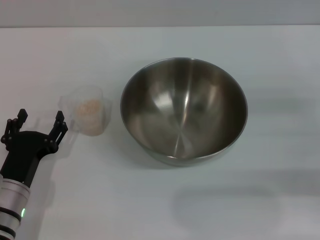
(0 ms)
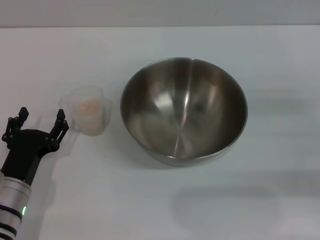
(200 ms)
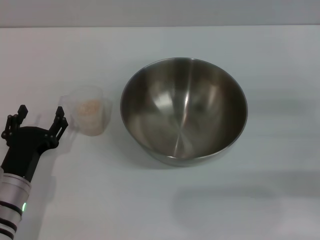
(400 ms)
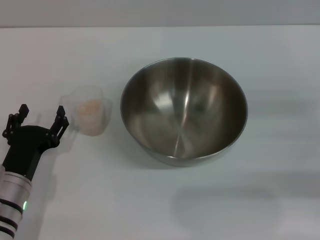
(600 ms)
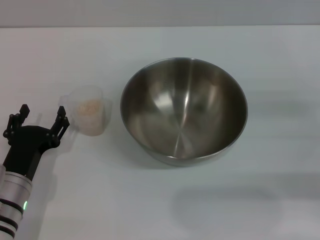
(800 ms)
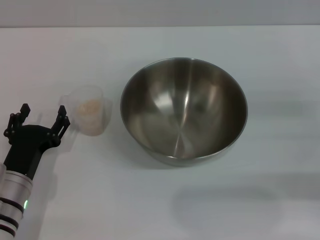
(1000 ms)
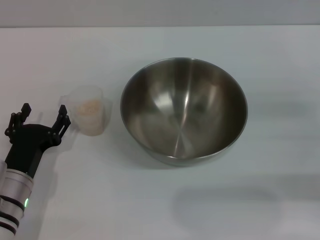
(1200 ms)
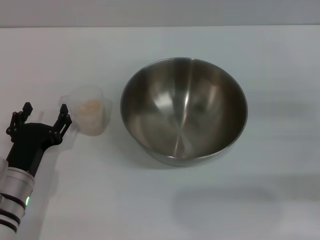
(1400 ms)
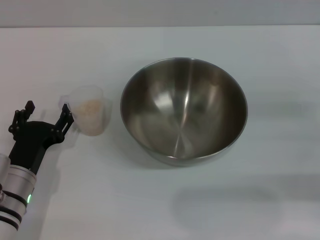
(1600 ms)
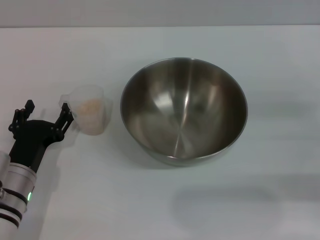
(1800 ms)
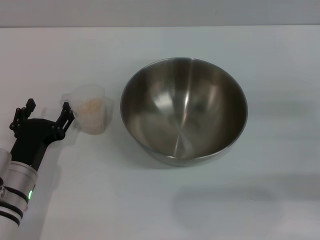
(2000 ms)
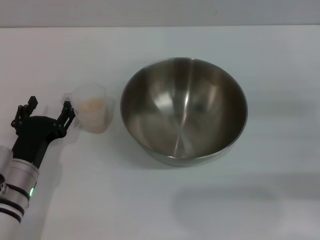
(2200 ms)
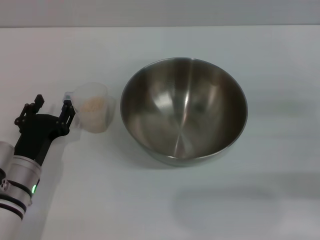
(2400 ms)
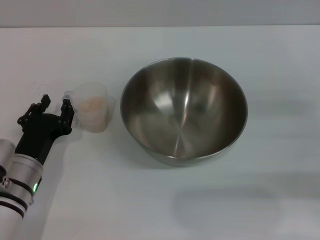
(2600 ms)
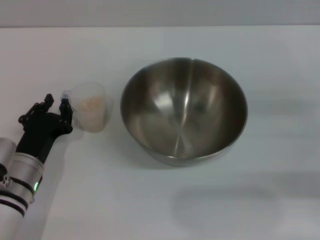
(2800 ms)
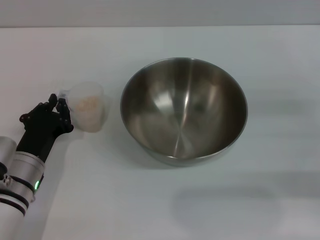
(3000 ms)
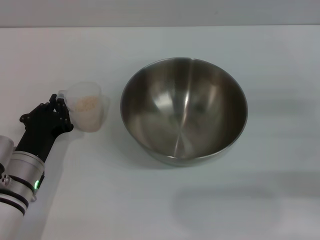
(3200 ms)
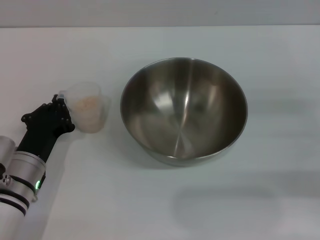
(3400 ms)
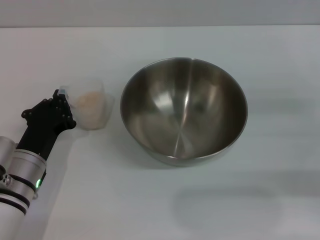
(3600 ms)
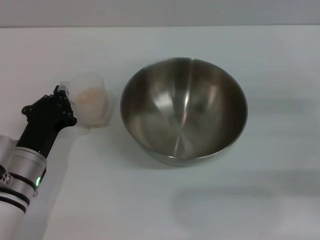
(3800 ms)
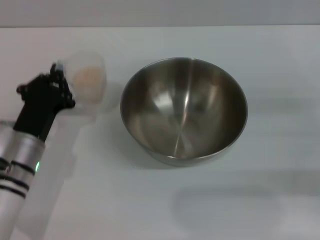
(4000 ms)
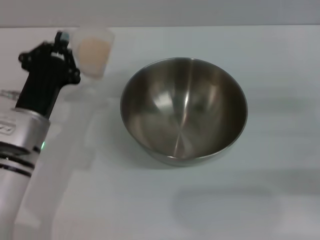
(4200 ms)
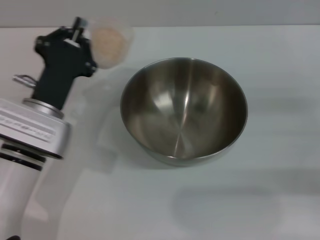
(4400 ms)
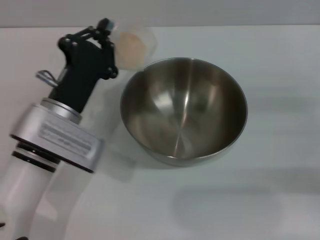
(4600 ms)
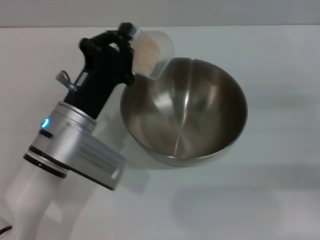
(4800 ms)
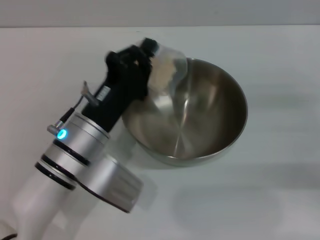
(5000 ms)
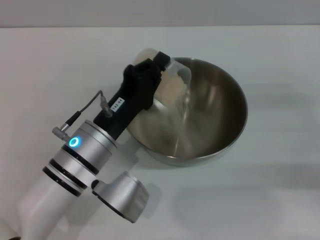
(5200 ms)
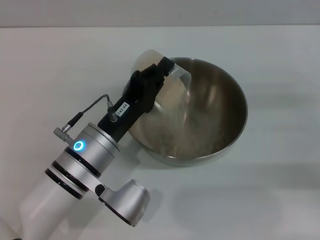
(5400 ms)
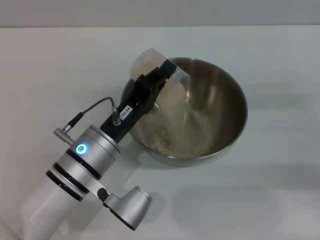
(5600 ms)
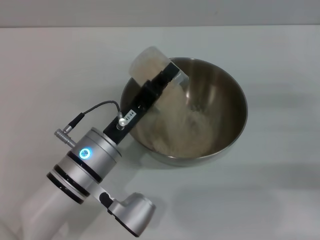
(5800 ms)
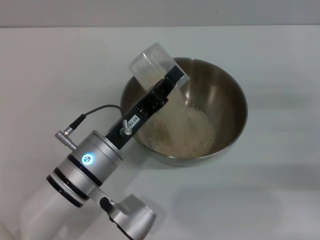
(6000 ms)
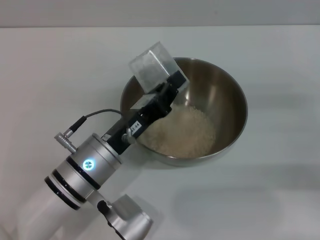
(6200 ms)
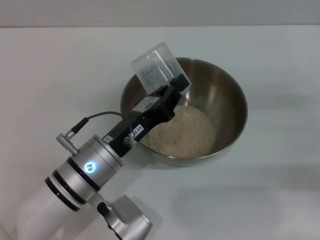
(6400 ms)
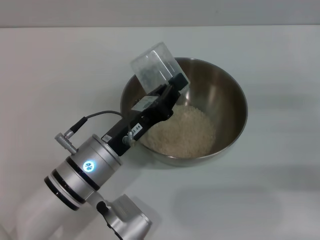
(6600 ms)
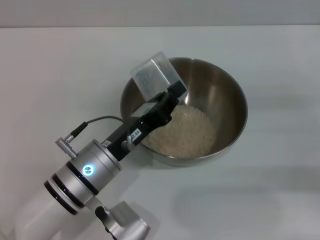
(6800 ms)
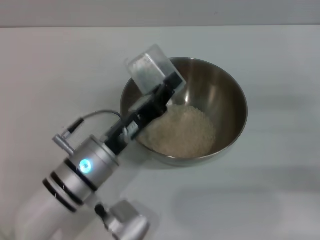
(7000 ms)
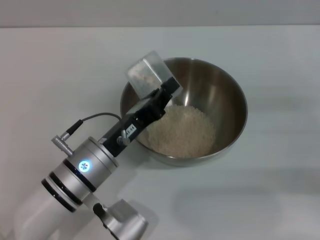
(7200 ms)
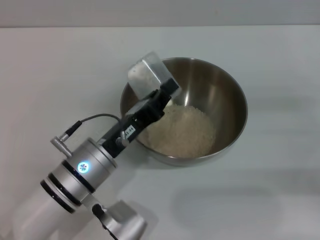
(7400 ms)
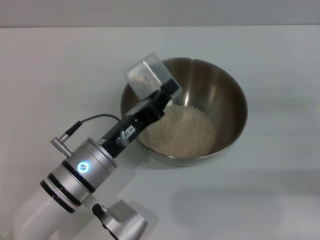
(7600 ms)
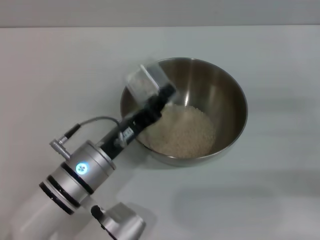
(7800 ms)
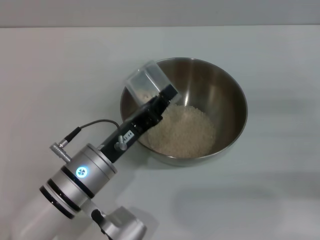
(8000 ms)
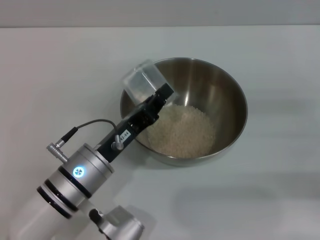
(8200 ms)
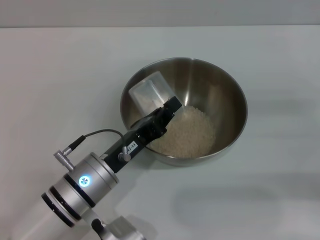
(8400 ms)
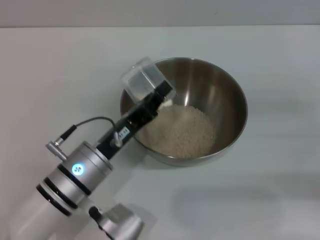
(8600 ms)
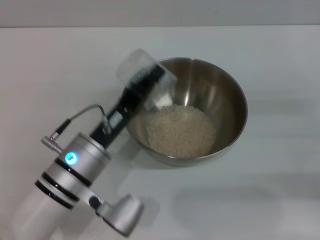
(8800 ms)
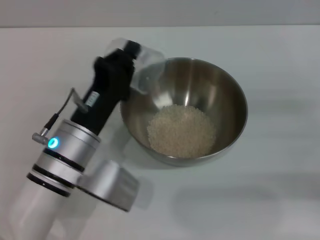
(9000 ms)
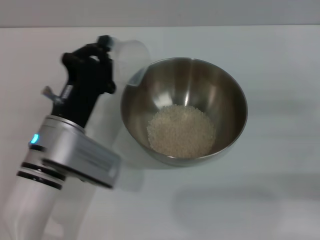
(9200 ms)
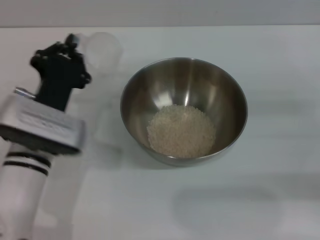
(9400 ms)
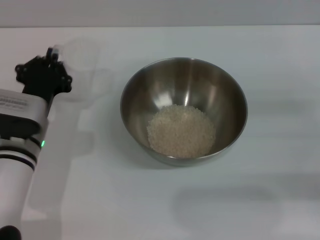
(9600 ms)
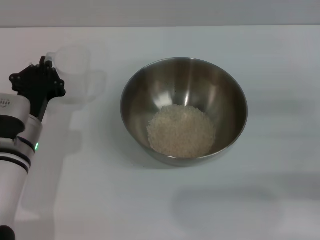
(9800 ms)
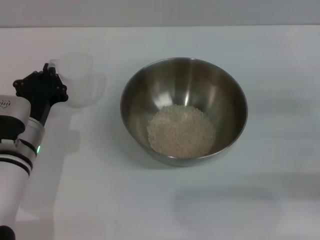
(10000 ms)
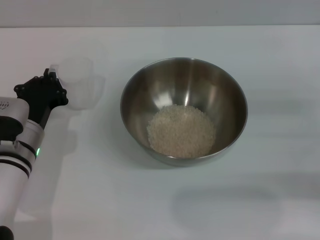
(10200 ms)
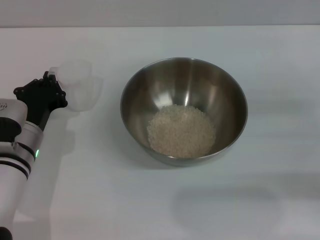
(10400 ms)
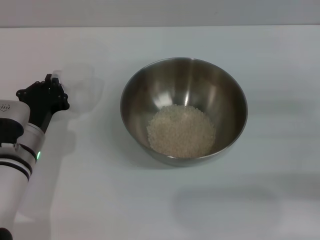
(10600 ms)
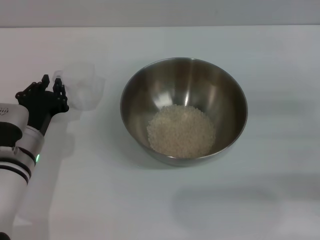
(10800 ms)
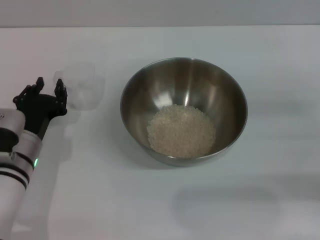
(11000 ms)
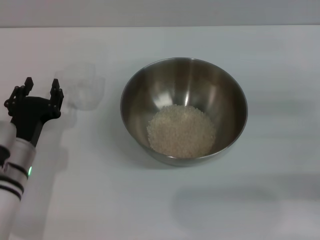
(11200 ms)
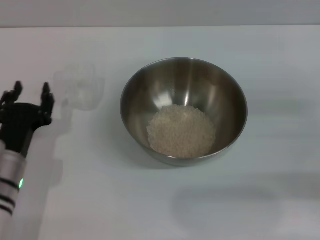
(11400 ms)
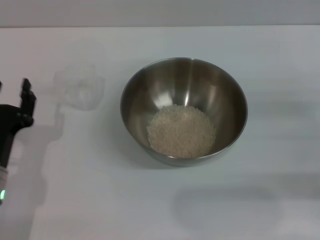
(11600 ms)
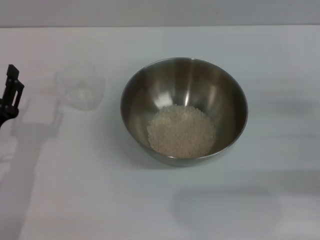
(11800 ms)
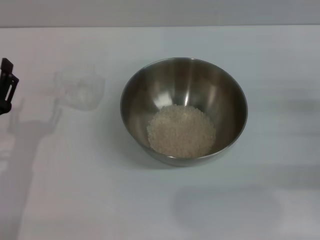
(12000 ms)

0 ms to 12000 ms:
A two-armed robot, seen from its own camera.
Task of the whole recording: Place the bowl in the middle of the table with one hand and pour the rice from the grain cup into it with the other hand.
Step, 0 ms to 4000 ms: Pick up the cup with rice in it with the left gripper.
Step, 4200 ms to 8600 ms: Pour the rice from the cup into the bowl with the left gripper.
Step, 8800 ms to 11400 ms: Place the cup on the table with the left gripper.
0 ms to 1600 ms: The grippers move only a little.
1600 ms to 3000 ms: The left gripper closes its fingers.
3000 ms to 4400 ms: The left gripper is displaced upward by approximately 5 cm, and closes.
4400 ms to 6000 ms: The left gripper is displaced to the right by approximately 5 cm.
6000 ms to 7600 ms: There are only small adjustments of the grippers.
9000 ms to 10400 ms: The left gripper heads to the left, covering some 10 cm.
10400 ms to 12000 ms: The left gripper moves backward, about 5 cm, and opens.
